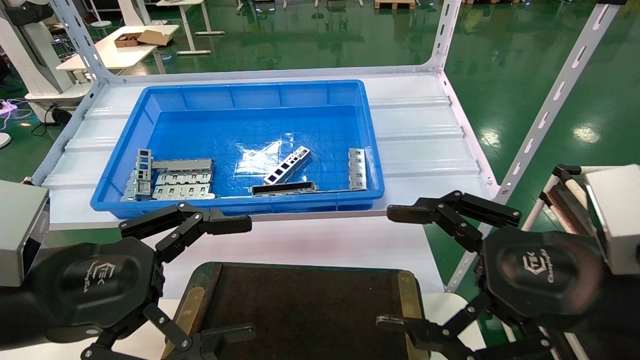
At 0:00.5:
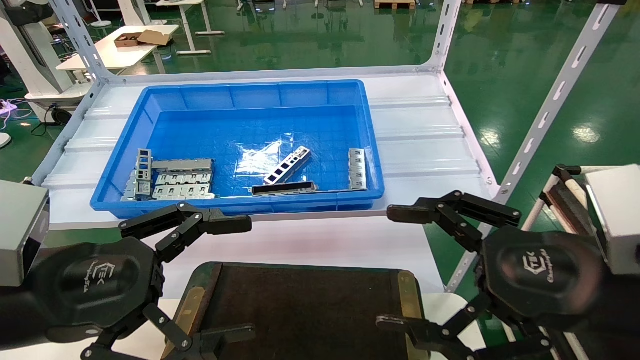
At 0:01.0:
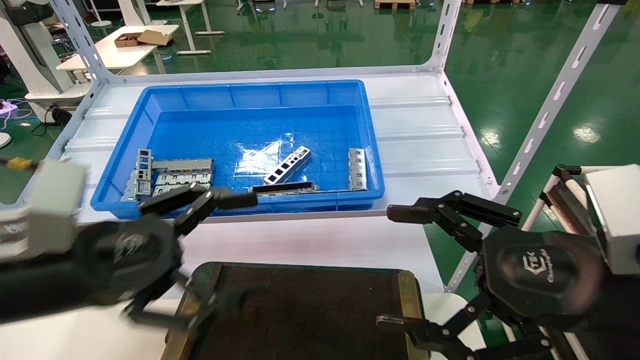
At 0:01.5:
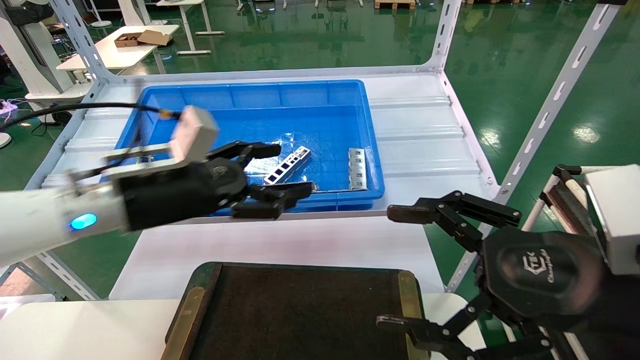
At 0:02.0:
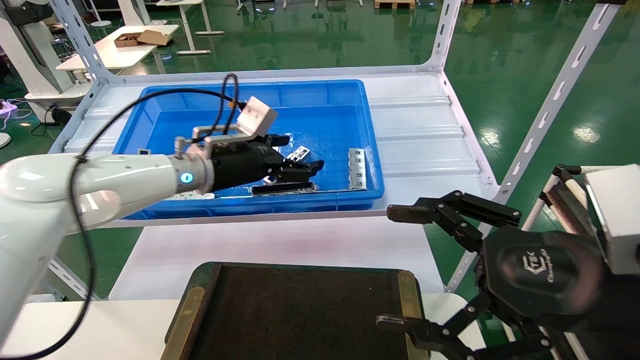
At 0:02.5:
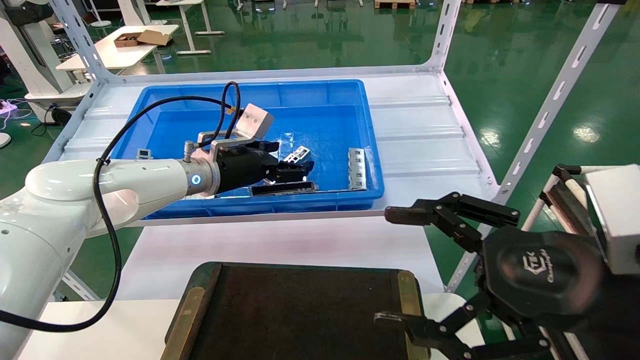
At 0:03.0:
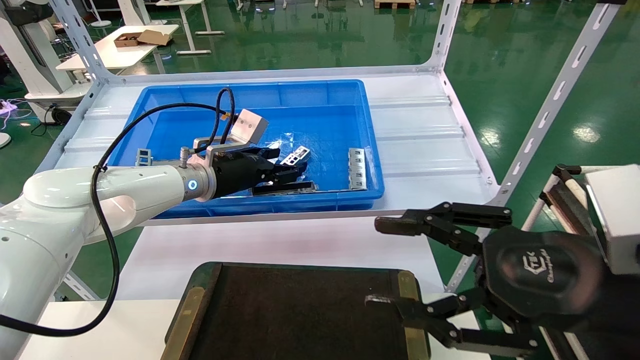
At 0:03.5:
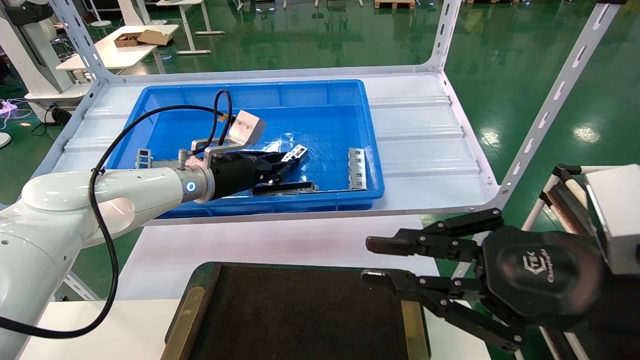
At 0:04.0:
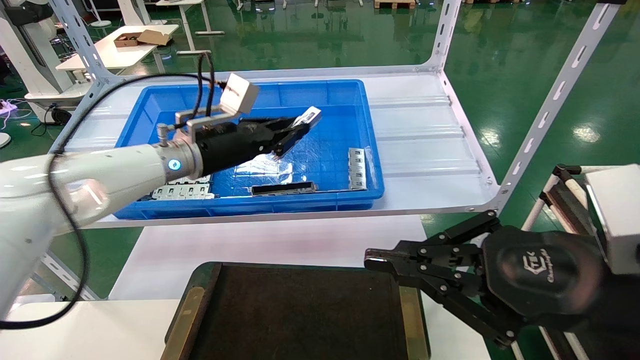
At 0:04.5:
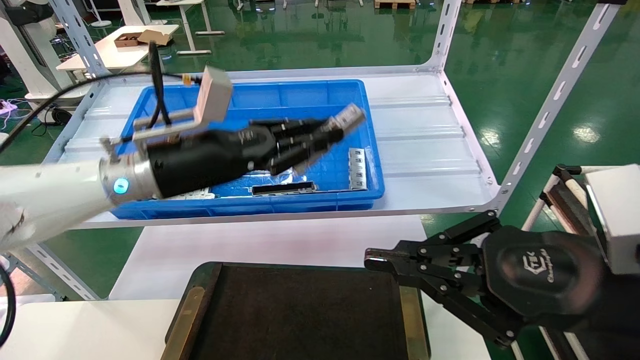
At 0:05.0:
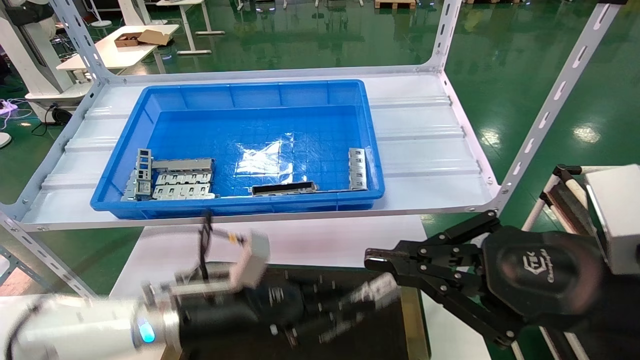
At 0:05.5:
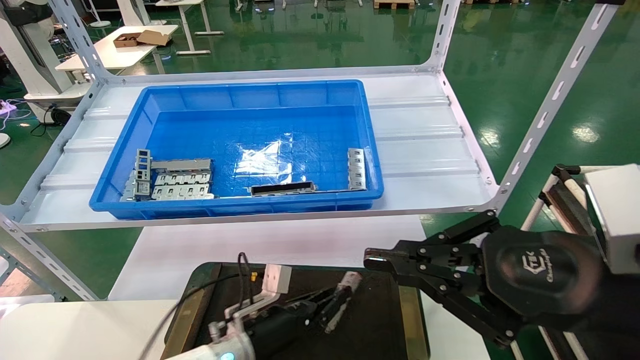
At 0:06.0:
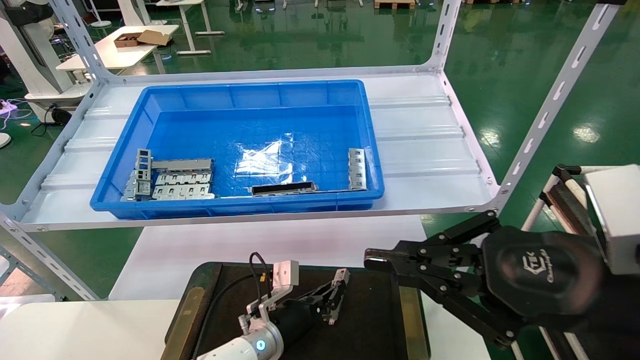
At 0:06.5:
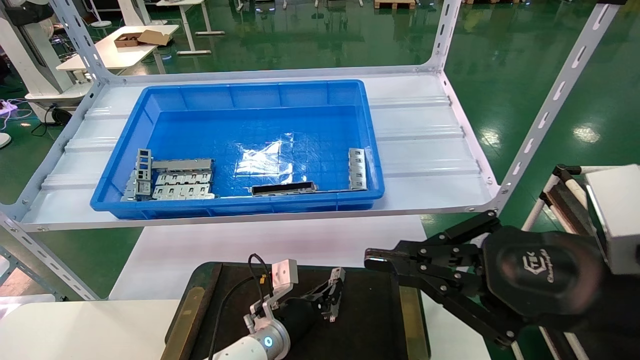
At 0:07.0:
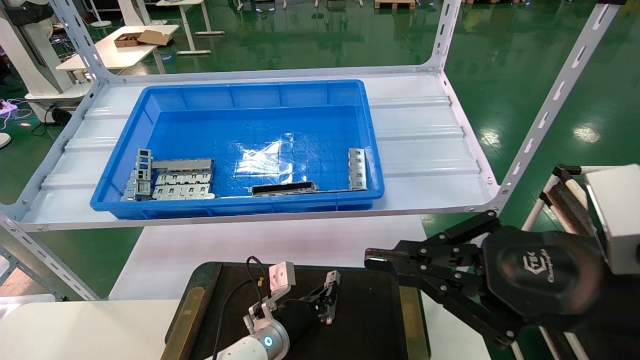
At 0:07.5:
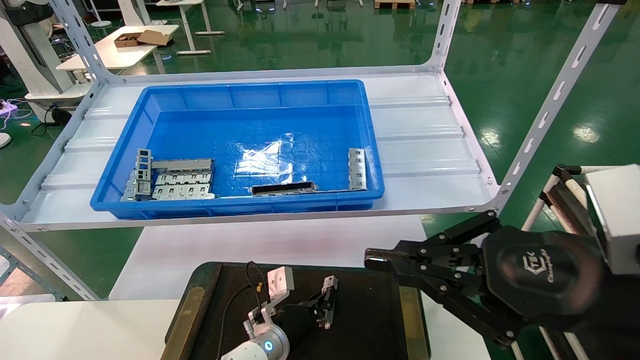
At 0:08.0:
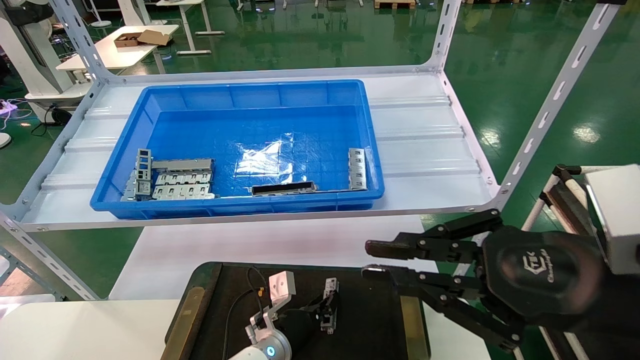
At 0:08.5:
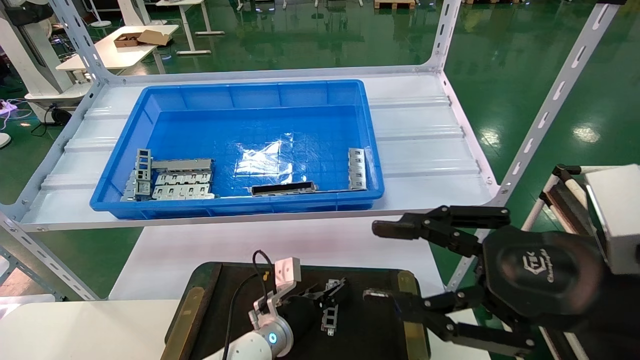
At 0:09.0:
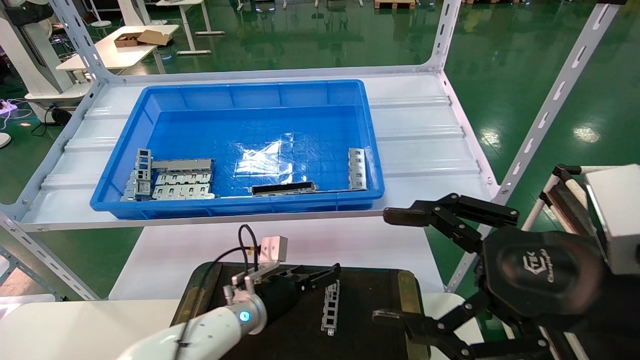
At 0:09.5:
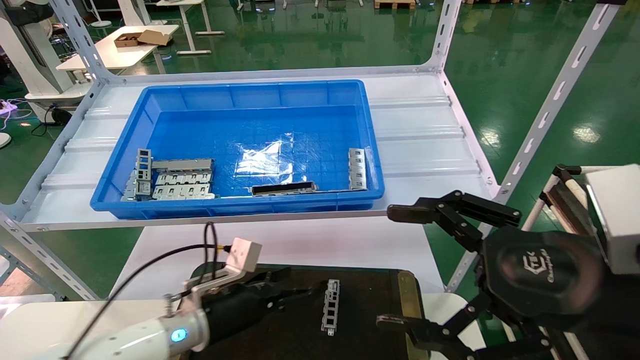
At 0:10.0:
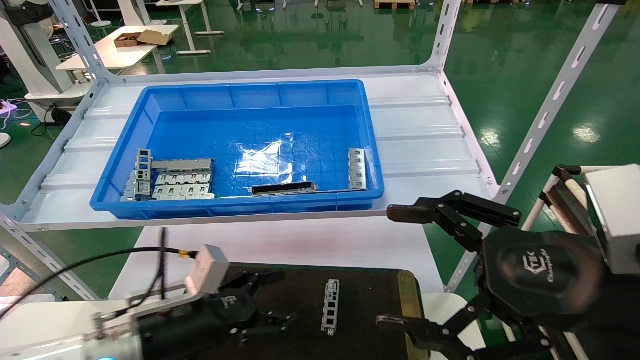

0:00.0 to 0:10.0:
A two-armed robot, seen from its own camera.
Task of the whole recording: Grasp the part with one hand and place it on the black container.
Step, 0:01.0 to 0:04.0: Pick up the front USB bracket from the feeding area.
Step, 0:04.5 to 0:08.0: Place the front USB bracket into the box.
0:00.0 to 0:02.0: The left gripper travels forward by roughly 25 cm.
0:02.0 to 0:04.0: The right gripper closes its fingers; the left gripper closes.
0:04.0 to 0:06.0: The left gripper is displaced downward by some 30 cm.
0:06.0 to 0:08.0: The grippers make only small movements.
0:08.0 to 0:10.0: The right gripper opens up. Meanwhile the left gripper goes approximately 25 cm to the left, upward and backward, and opens up.
